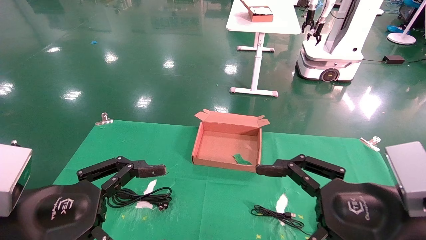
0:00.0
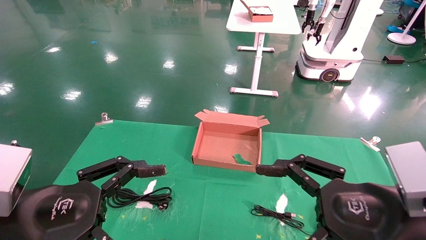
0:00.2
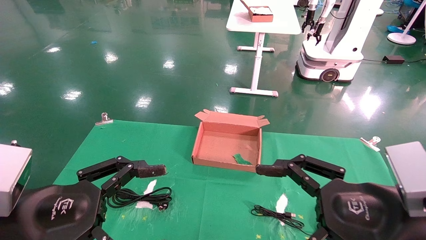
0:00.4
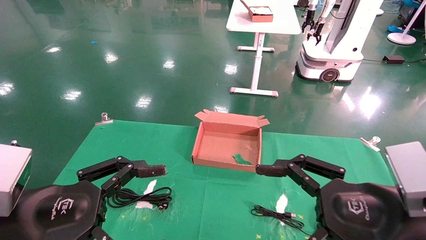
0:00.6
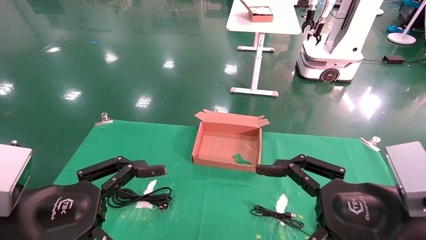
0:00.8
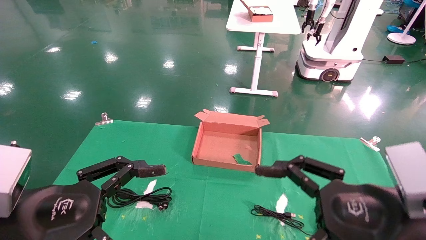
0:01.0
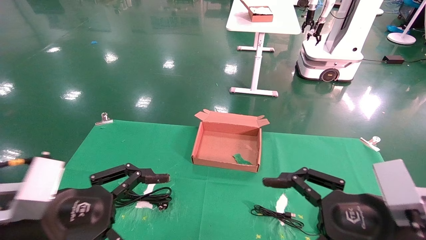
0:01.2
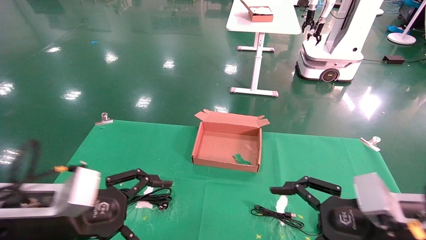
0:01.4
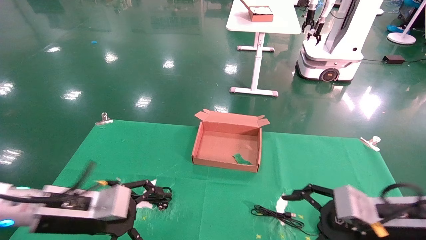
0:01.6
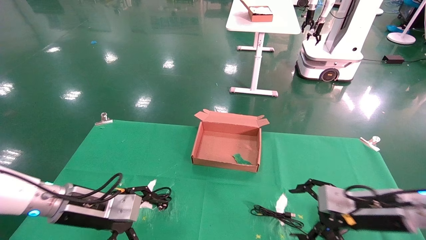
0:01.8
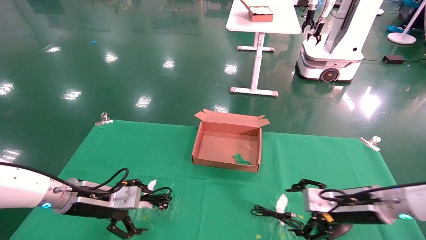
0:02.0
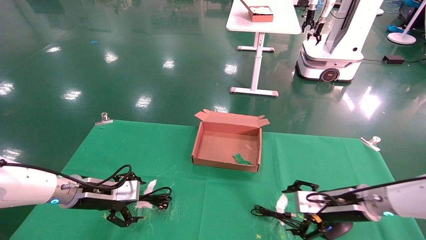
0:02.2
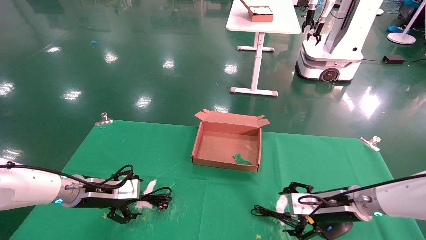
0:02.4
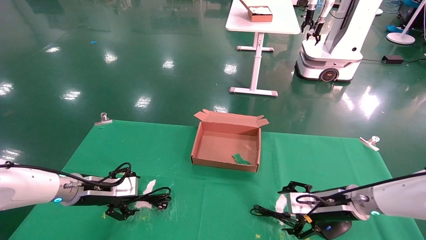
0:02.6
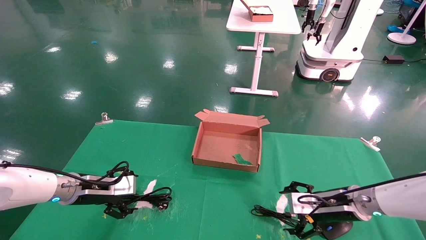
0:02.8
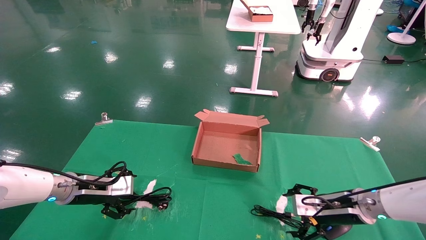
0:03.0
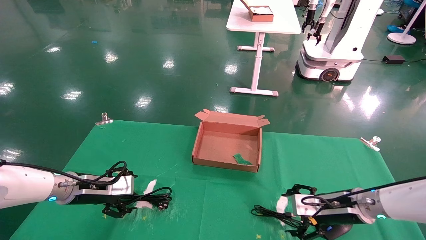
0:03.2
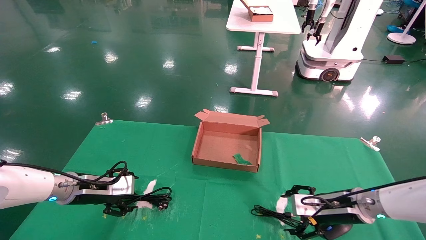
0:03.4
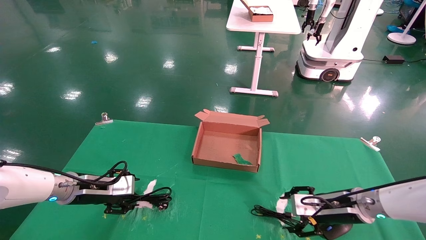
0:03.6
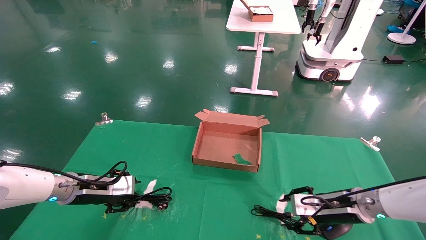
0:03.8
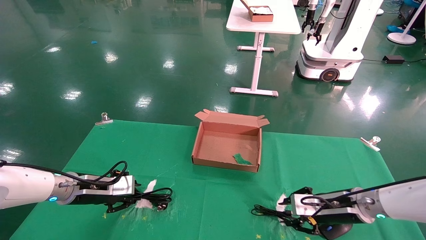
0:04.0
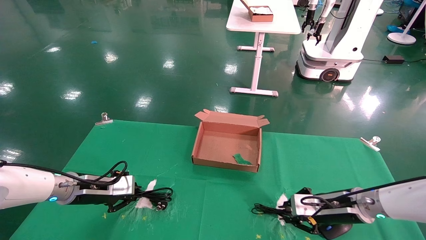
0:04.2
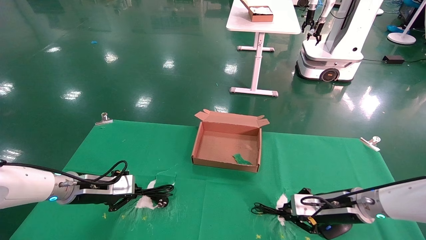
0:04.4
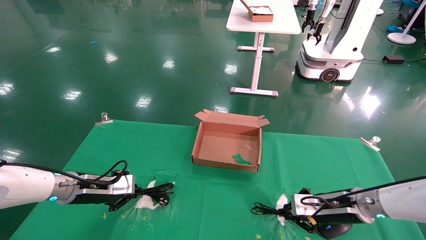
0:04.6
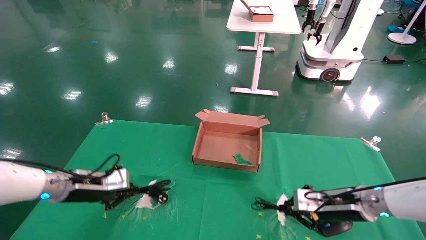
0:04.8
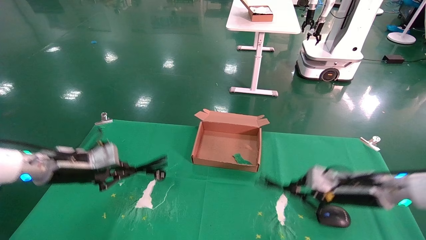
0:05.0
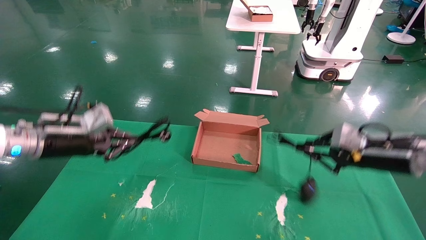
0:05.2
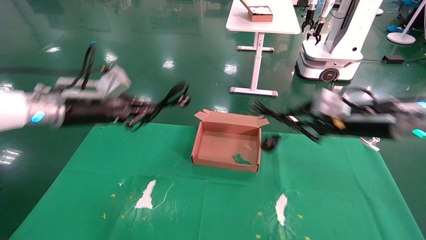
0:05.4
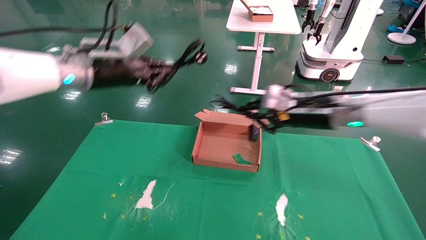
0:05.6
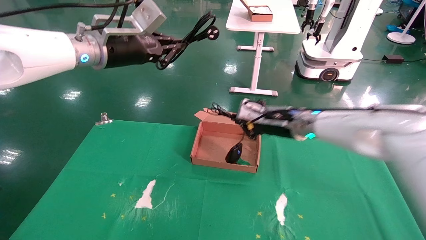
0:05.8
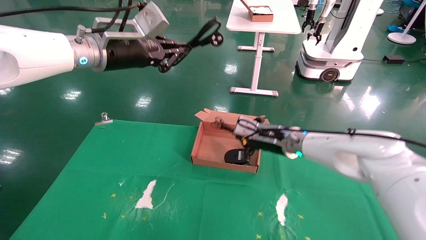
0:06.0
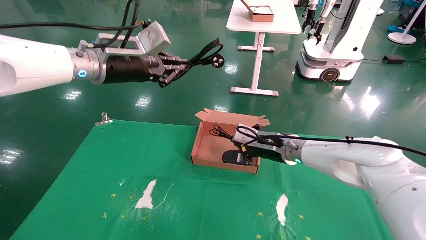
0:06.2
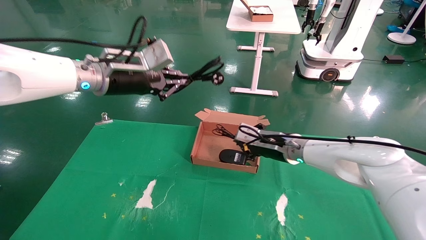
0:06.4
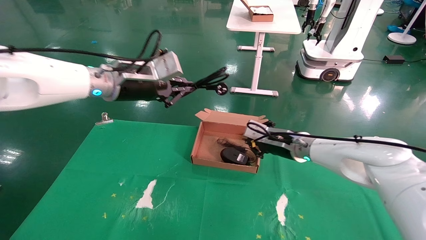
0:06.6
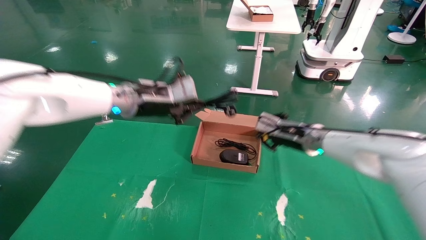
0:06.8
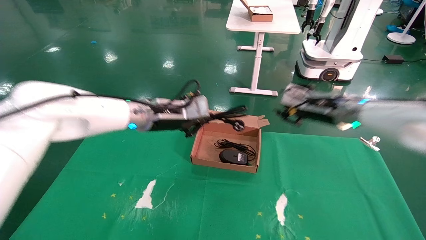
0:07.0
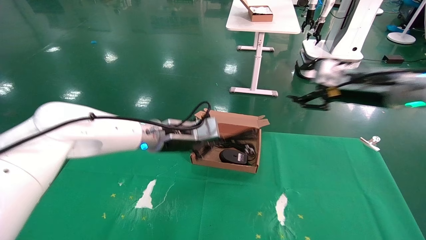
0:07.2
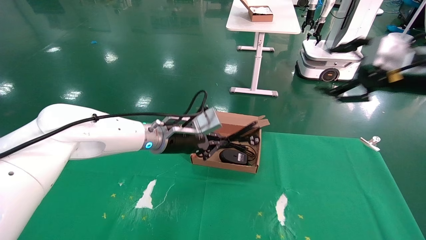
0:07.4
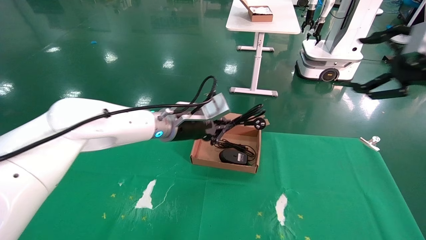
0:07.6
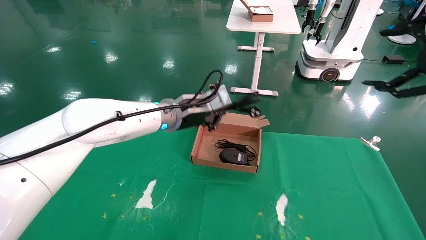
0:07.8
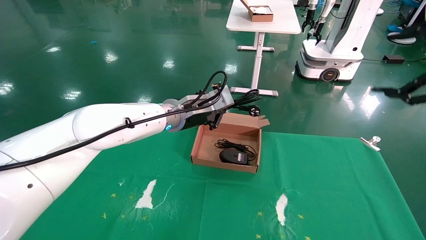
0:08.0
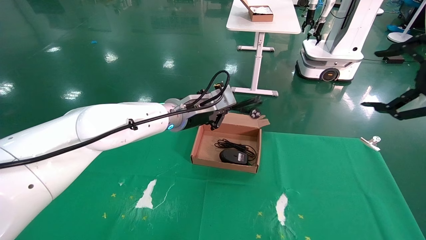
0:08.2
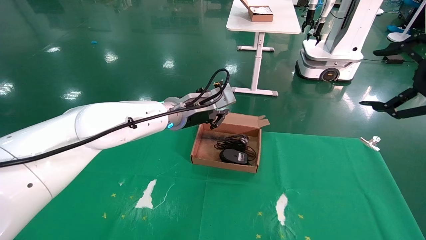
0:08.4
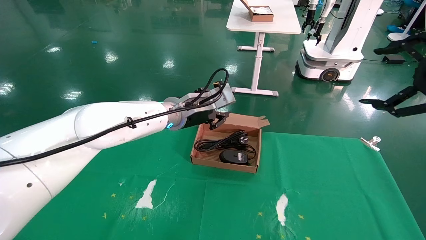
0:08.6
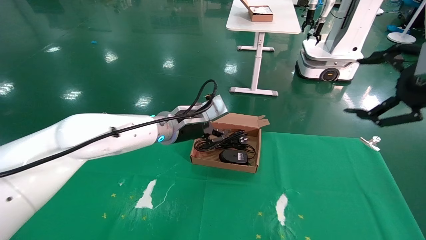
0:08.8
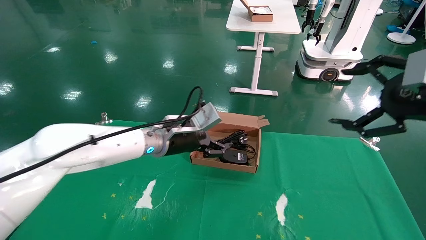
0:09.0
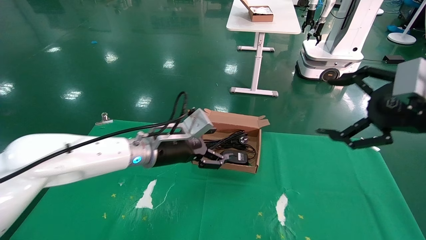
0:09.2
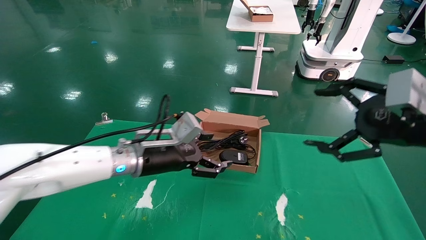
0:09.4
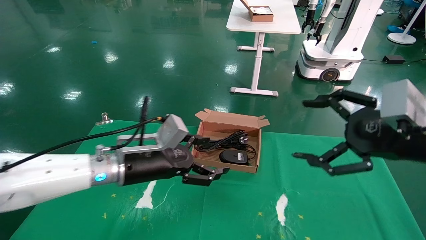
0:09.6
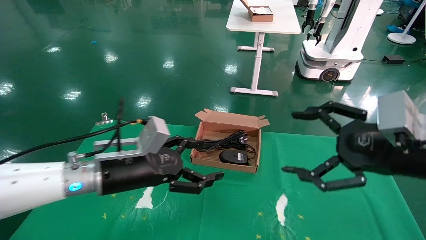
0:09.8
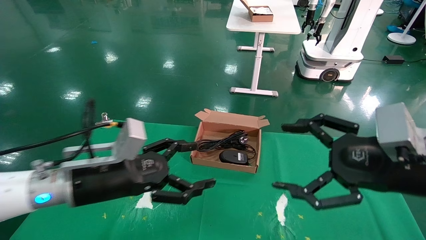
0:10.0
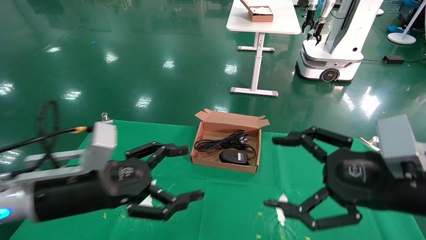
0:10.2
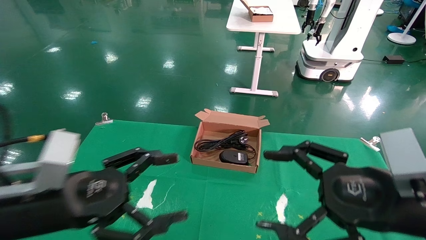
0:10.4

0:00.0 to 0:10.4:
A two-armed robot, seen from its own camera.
Step, 0:01.2 to 0:04.4: Grab and lift both the mouse and power cord from the accessory packaging area at the same time.
Step, 0:04.6 to 0:08.4: Place the mouse and power cord into the box.
0:00.0 to 0:01.4: Both grippers travel together forward, about 5 cm.
0:01.4 to 0:03.0: The left gripper travels forward by approximately 15 cm, while the right gripper shifts some 20 cm forward and downward.
0:03.0 to 0:04.4: The left gripper closes its fingers, while the right gripper closes up.
0:04.4 to 0:06.0: The left gripper heads upward and to the right, covering about 30 cm. The right gripper moves to the left, upward and forward, about 20 cm.
0:06.0 to 0:07.4: The left gripper moves downward and to the right, some 20 cm. Meanwhile the right gripper moves to the right, upward and backward, roughly 30 cm, and opens.
0:07.4 to 0:09.0: The left gripper opens its fingers. Meanwhile the right gripper goes about 10 cm backward.
0:09.0 to 0:10.4: The right gripper travels downward, to the left and backward by some 15 cm. The left gripper is displaced backward and to the left by some 25 cm, and opens its fingers.

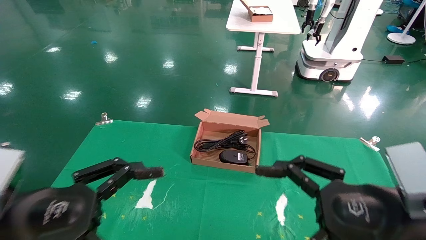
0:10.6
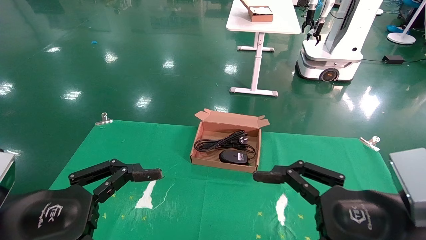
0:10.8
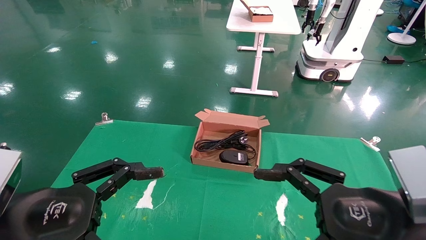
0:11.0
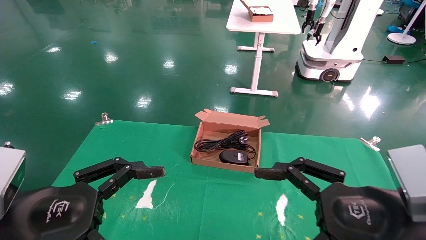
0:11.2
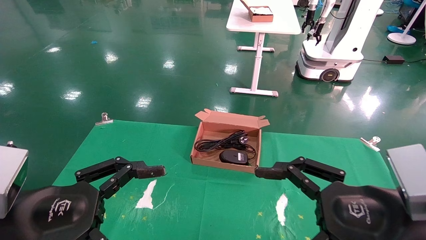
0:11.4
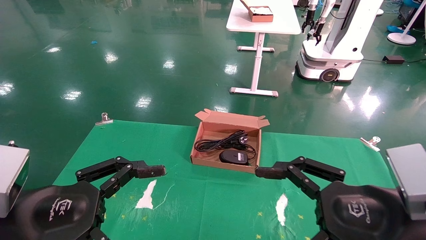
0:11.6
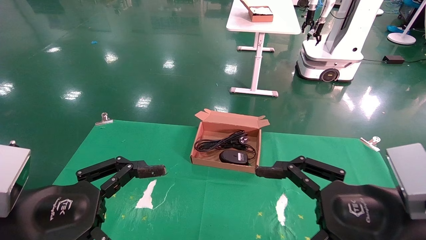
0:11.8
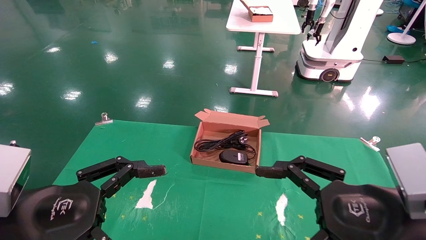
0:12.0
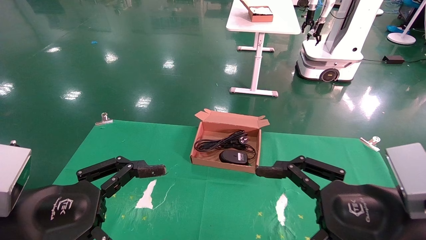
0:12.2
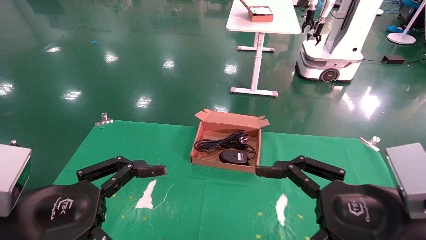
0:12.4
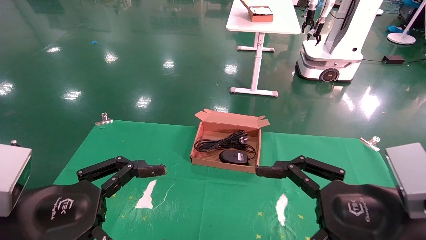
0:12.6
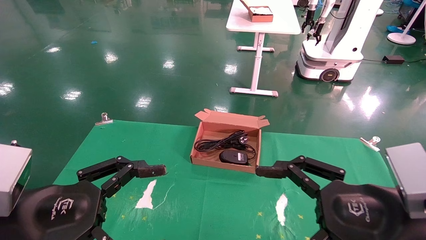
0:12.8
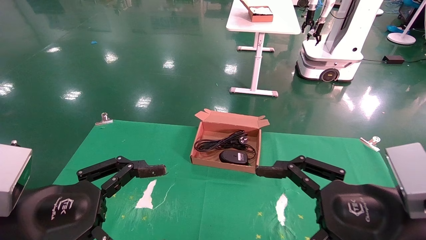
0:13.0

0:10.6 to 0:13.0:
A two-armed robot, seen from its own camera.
0:10.6 to 0:13.0: Neither gripper changes place.

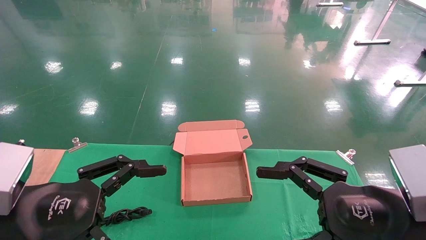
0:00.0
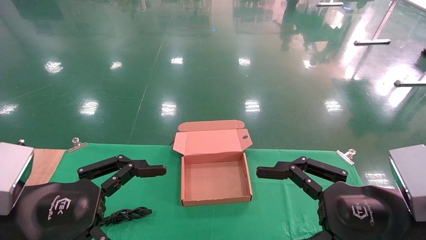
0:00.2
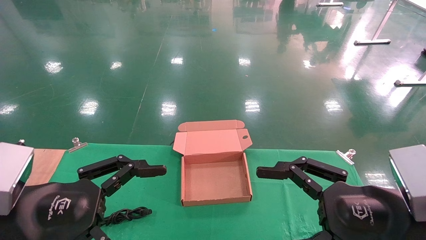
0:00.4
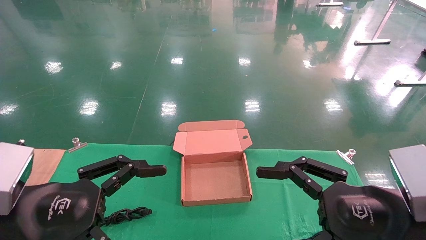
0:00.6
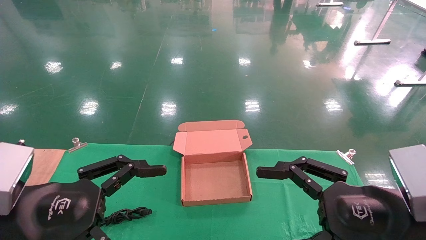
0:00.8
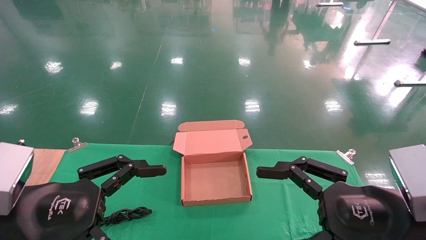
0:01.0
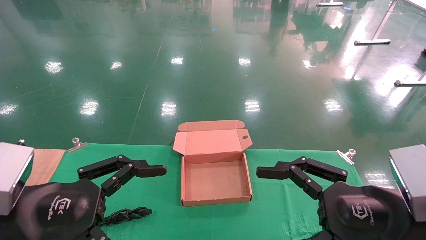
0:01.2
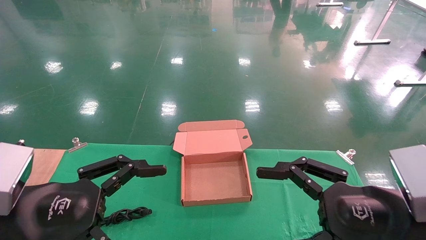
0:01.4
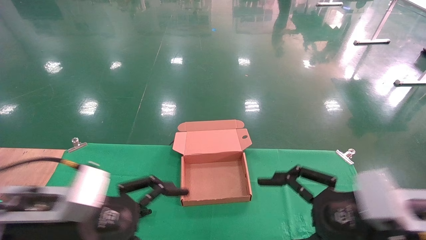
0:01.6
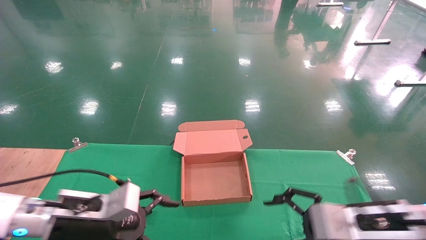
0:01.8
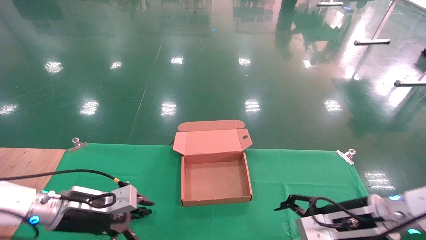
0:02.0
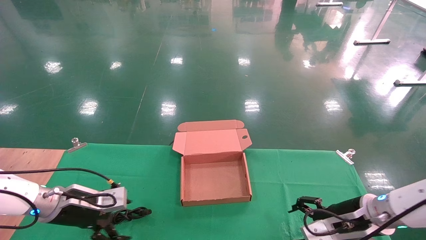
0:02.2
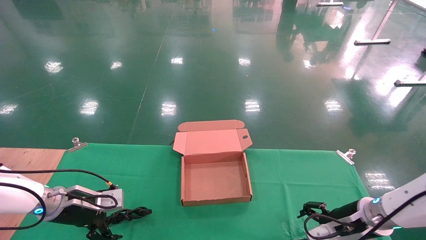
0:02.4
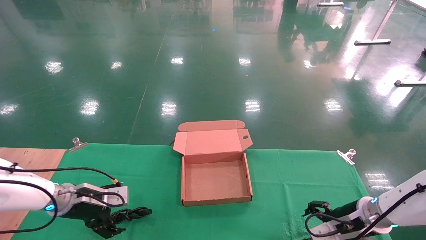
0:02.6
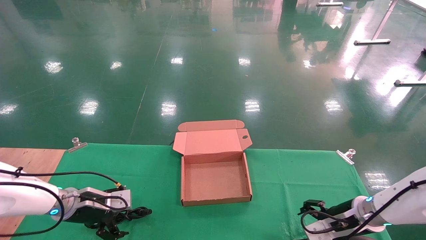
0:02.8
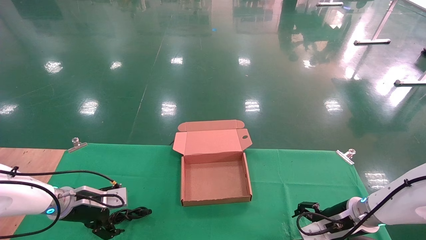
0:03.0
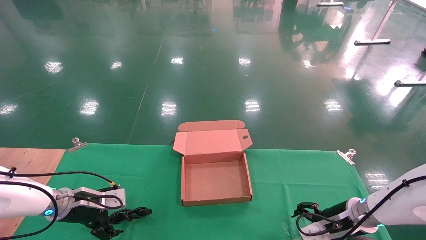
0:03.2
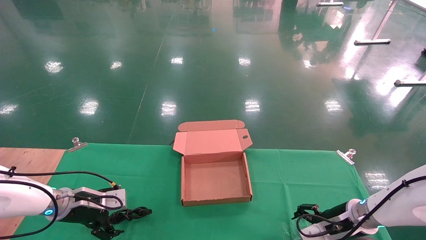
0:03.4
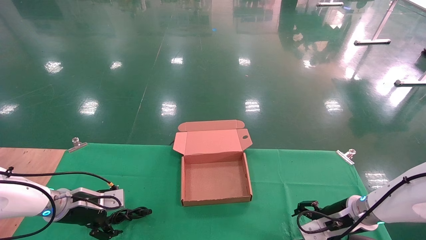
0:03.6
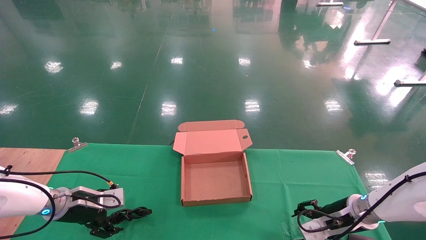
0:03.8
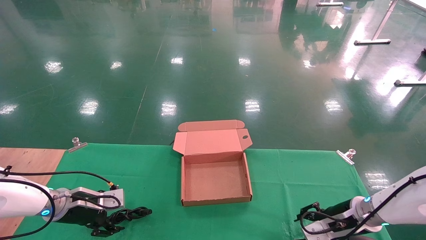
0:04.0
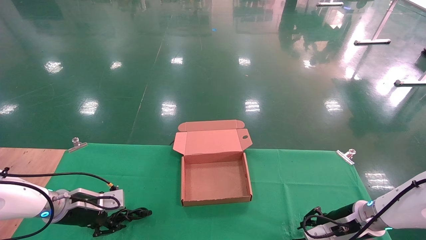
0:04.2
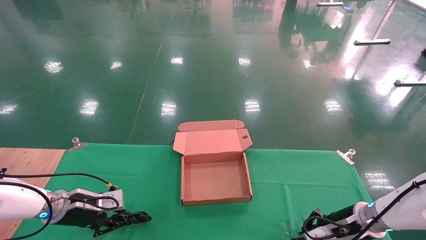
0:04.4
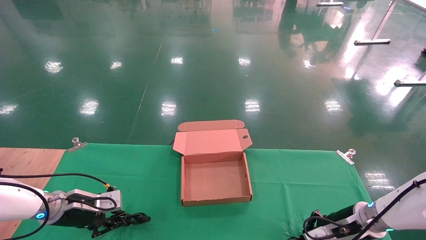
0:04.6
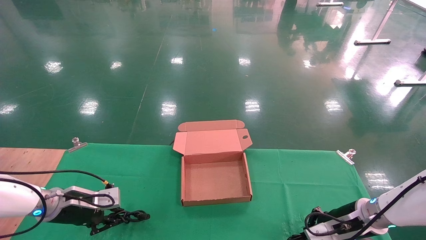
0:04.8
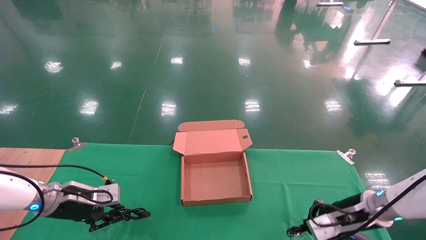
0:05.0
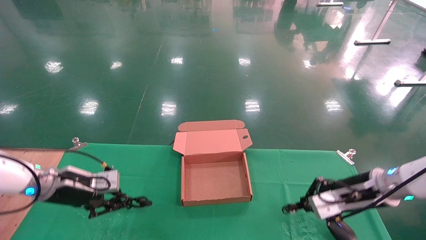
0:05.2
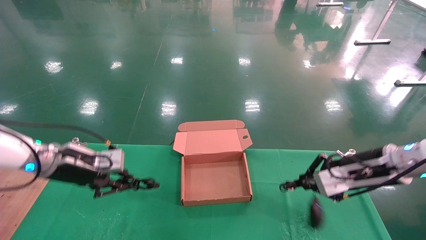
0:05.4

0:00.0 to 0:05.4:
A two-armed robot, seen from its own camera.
Step, 0:01.4 to 0:05.0: Grab and lift both the mouse and power cord from the accessory packaging area at the same time.
0:00.0 to 0:01.4: There are only small adjustments of the grippers.
0:01.4 to 0:02.8: The two grippers go some 25 cm forward and downward.
0:02.8 to 0:04.0: Neither gripper changes place.
0:04.0 to 0:05.4: Both grippers move upward, roughly 15 cm. The right gripper closes its fingers, while the left gripper closes its fingers.
